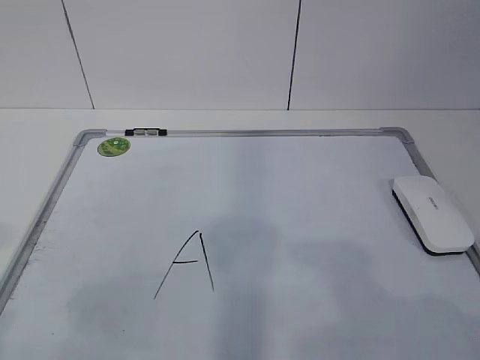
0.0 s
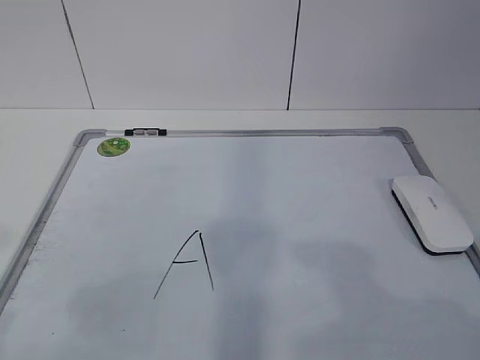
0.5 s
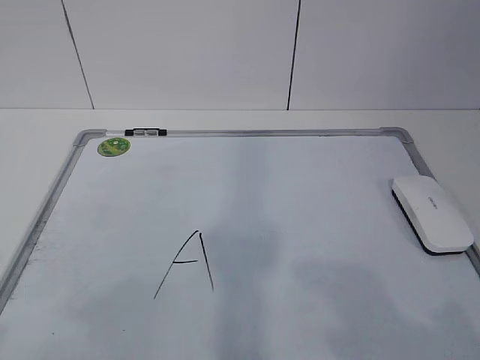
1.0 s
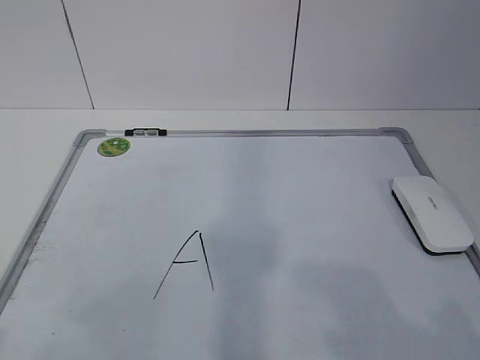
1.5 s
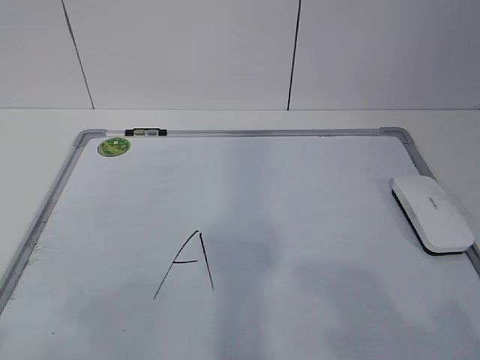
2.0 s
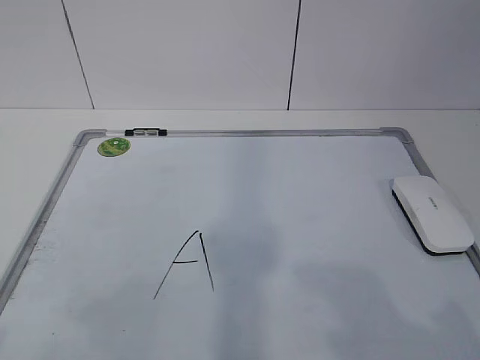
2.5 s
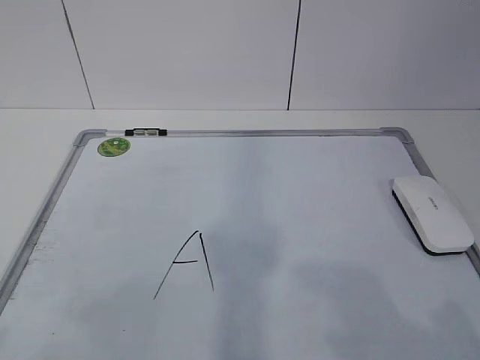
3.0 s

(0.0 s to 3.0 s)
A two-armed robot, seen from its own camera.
Task of the whole recording: pick up the eraser on the blackboard and erase the letter "a".
1.5 s - 3.0 s: The two grippers keep their place.

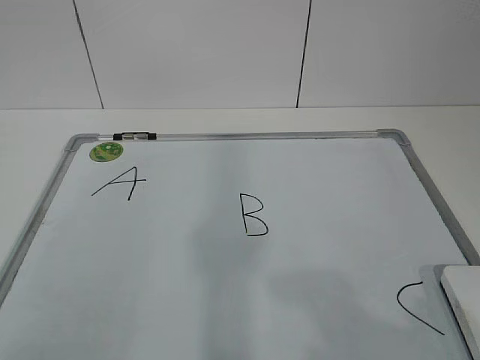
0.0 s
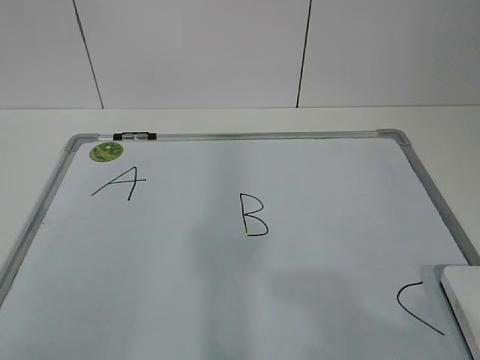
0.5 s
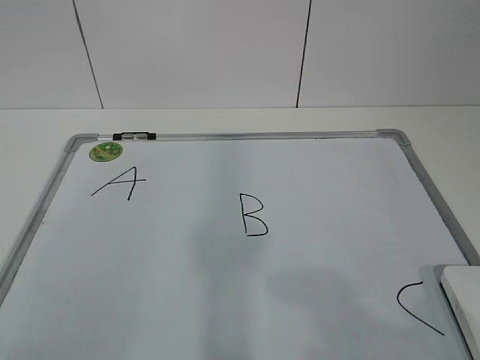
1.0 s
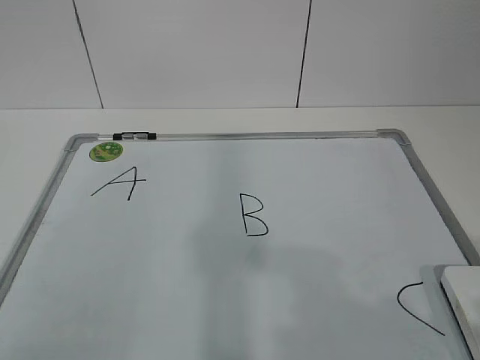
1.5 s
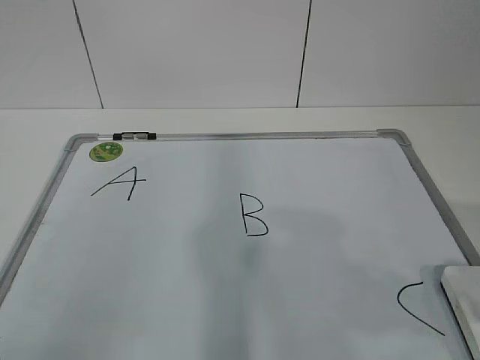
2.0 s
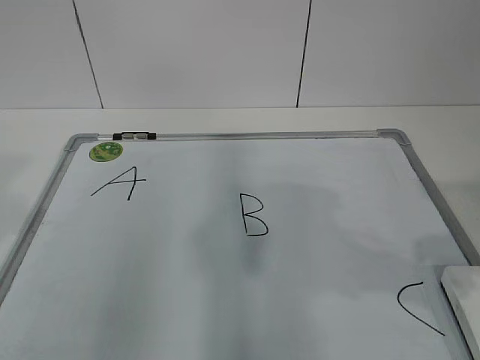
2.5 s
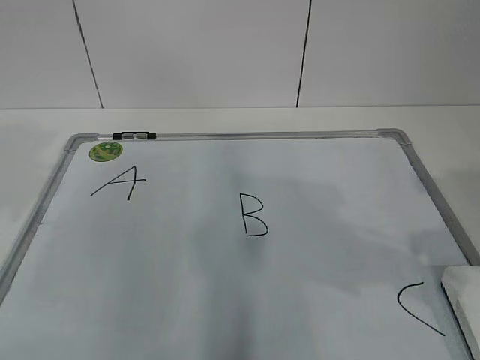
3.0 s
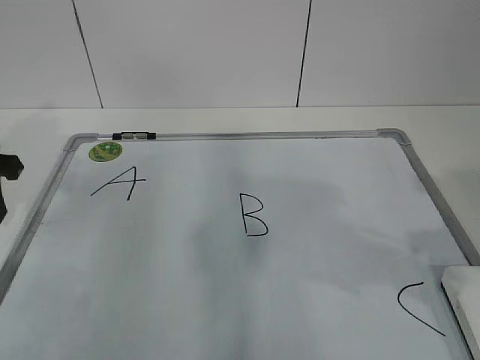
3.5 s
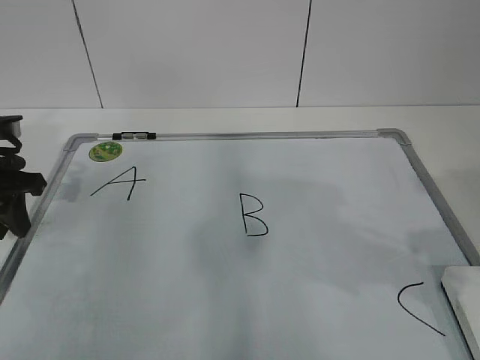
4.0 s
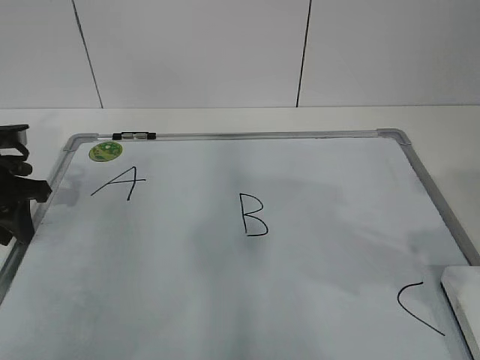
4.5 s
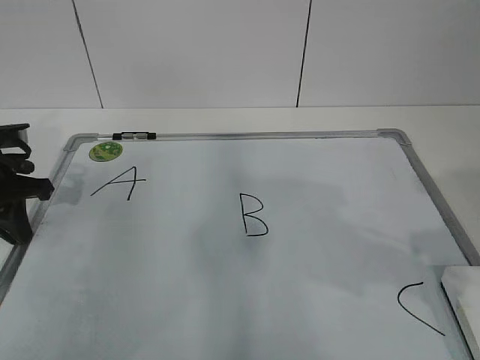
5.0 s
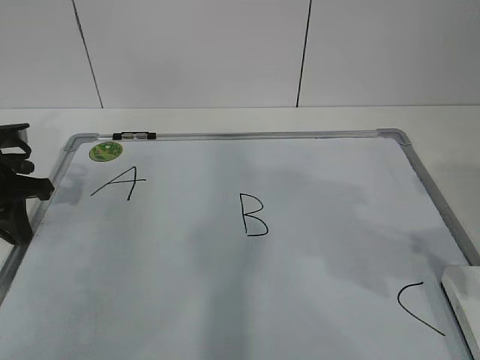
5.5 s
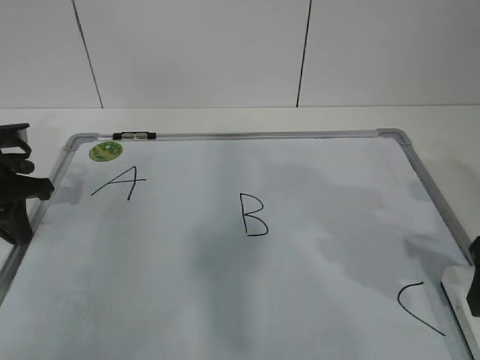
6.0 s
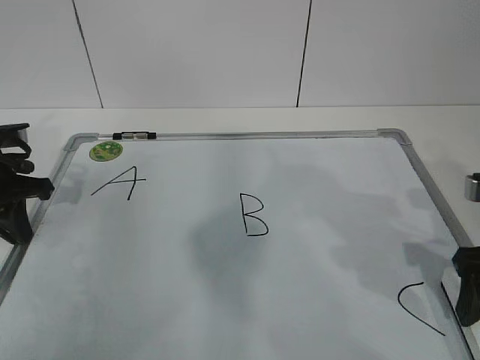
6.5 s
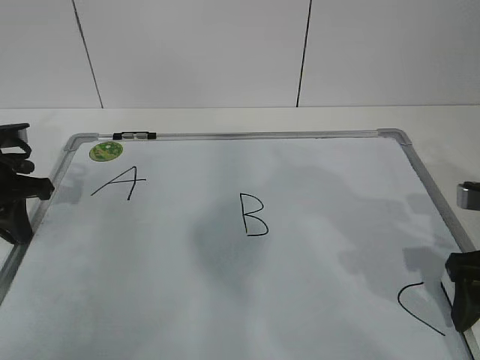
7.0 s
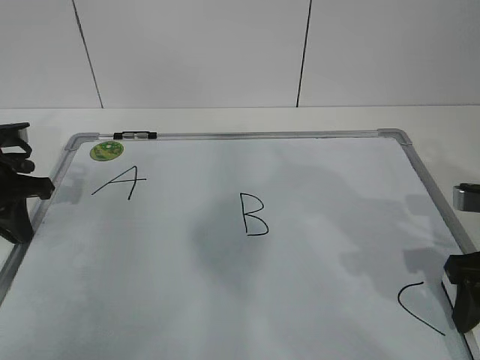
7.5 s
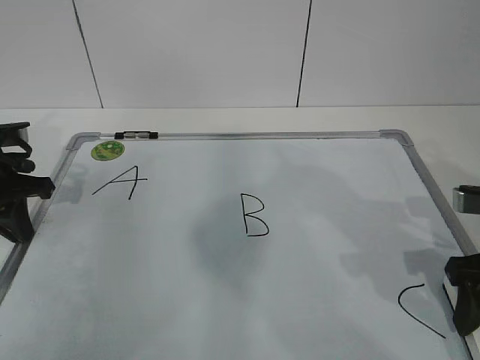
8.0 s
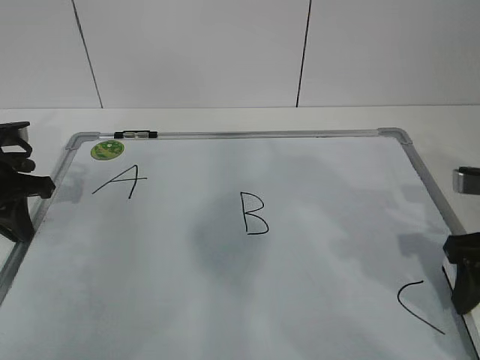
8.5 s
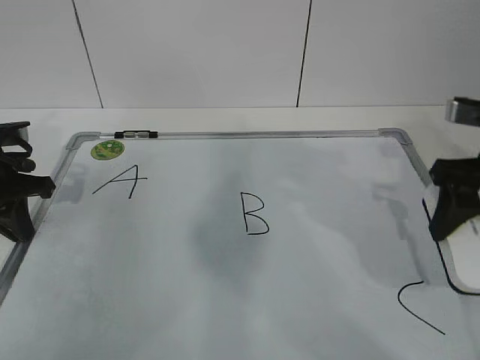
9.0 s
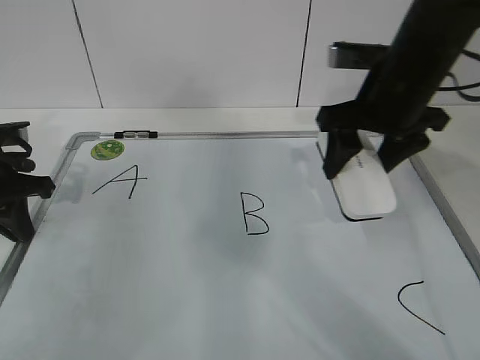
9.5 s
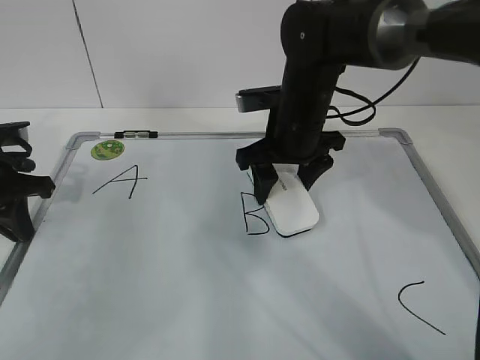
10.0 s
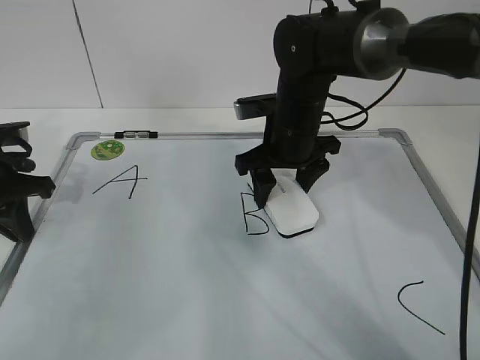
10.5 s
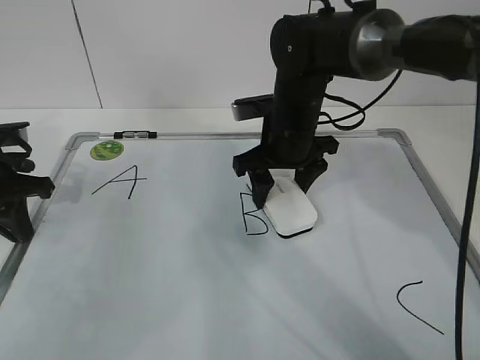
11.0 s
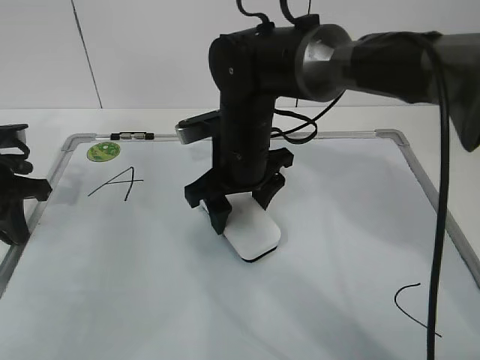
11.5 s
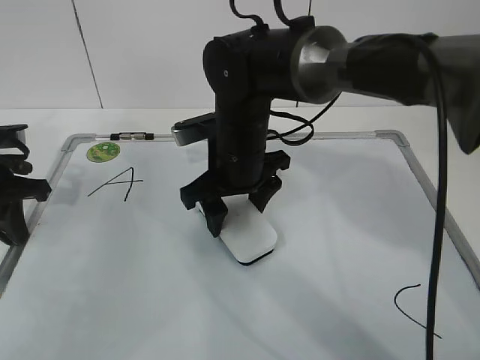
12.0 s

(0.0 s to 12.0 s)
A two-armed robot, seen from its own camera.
Task of the whole recording: pick up the eraser on the blackboard and erase the letter "B".
Step, 4.0 s - 6.5 s: Grab the eraser with your right hand.
2.0 s - 4.0 s: The left gripper moves forward and downward, roughly 30 cm.
4.0 s - 6.0 s: The right gripper heads downward and forward, covering some 10 cm, and opens its fingers. The left gripper closes.
6.0 s - 8.0 s: The right gripper closes its fingers.
8.0 s - 10.0 s: The right gripper moves to the left and forward, some 25 cm.
10.0 s - 12.0 s: The right gripper goes about 5 cm to the left.

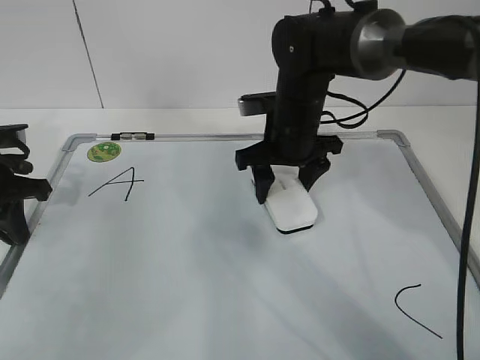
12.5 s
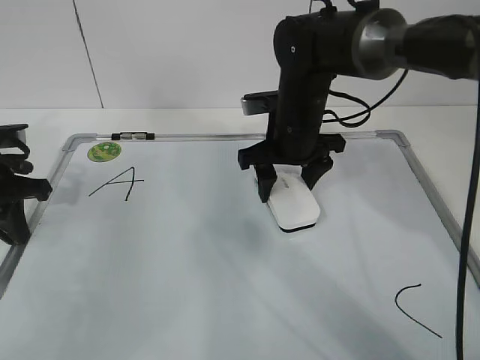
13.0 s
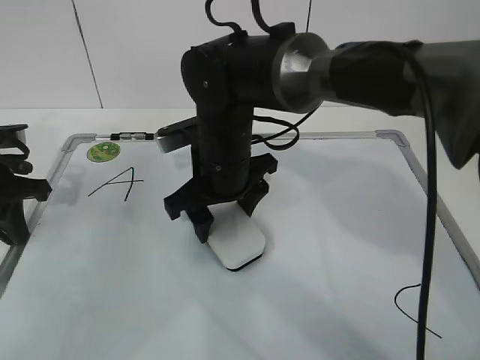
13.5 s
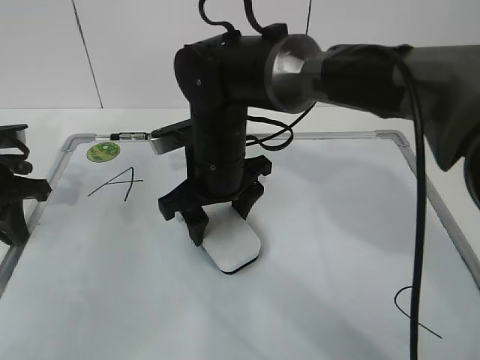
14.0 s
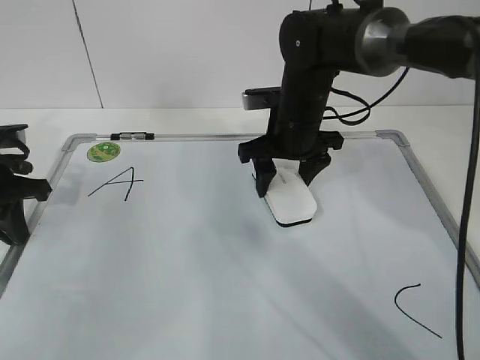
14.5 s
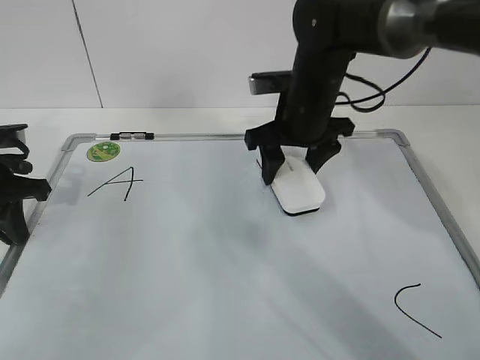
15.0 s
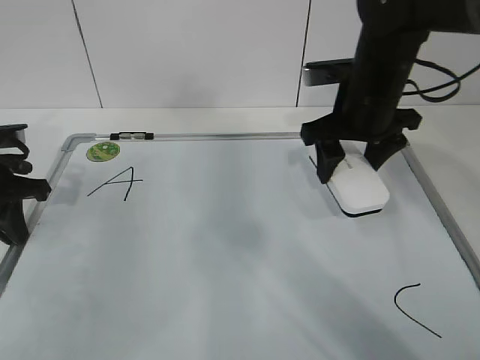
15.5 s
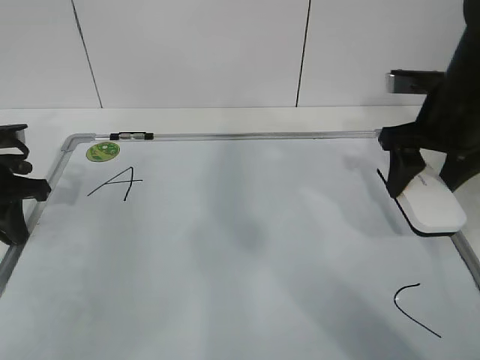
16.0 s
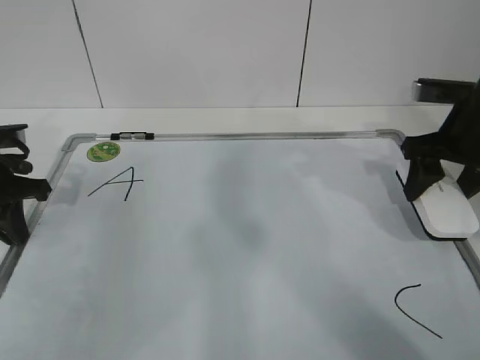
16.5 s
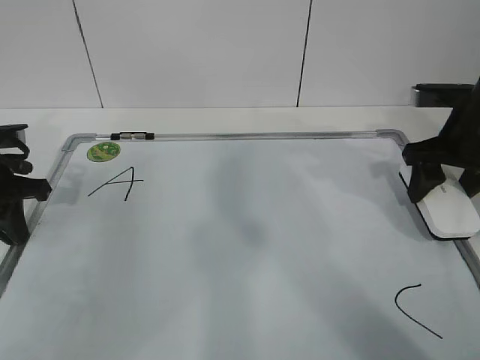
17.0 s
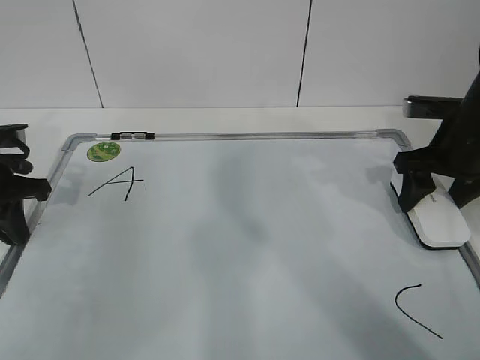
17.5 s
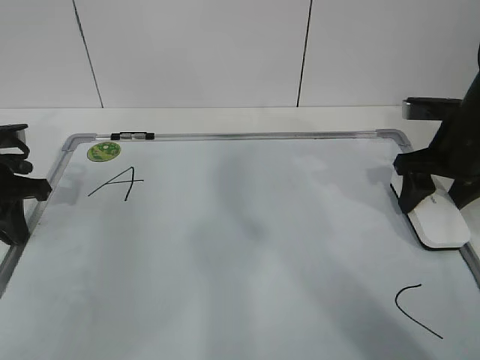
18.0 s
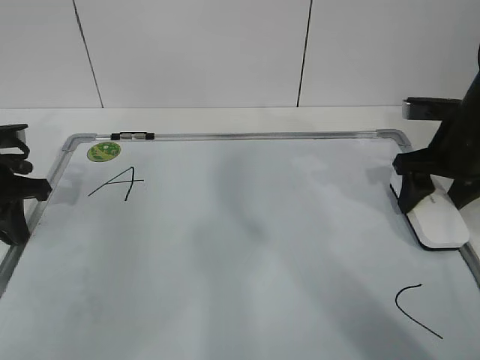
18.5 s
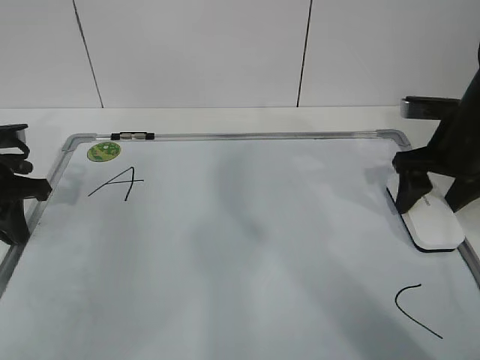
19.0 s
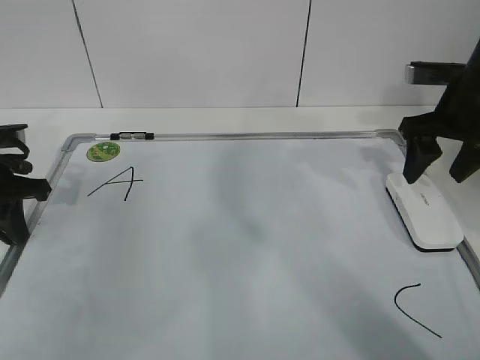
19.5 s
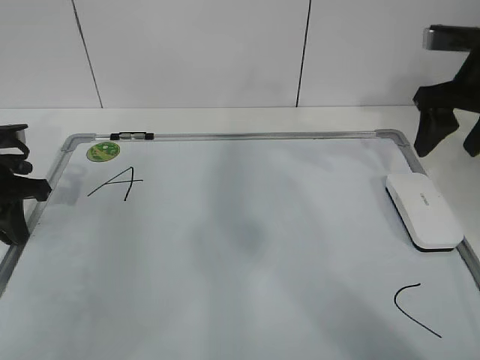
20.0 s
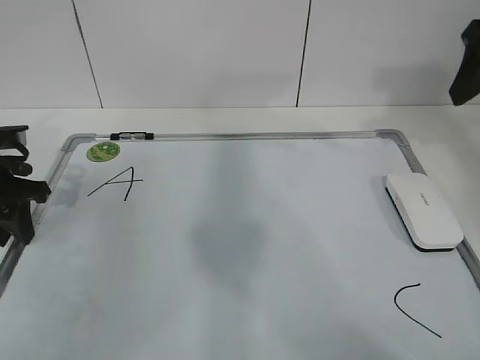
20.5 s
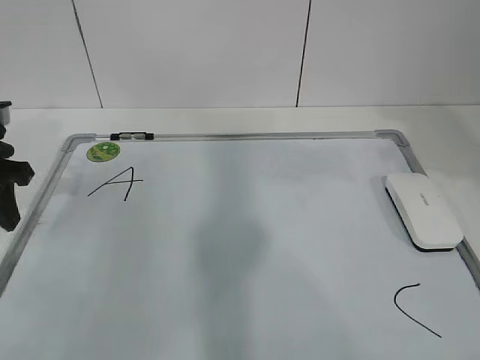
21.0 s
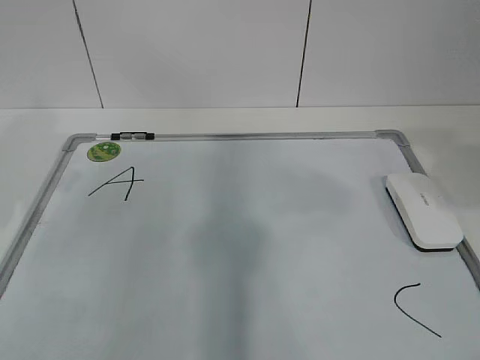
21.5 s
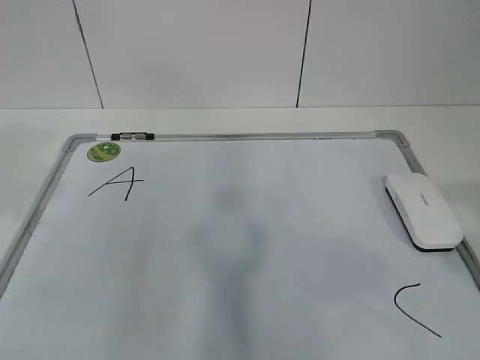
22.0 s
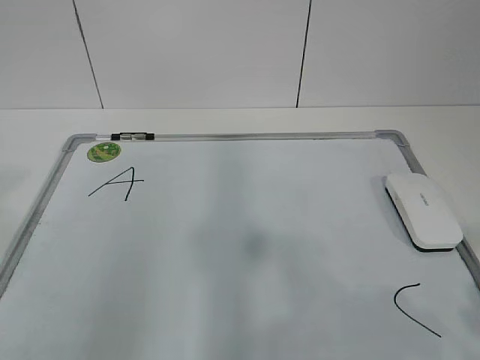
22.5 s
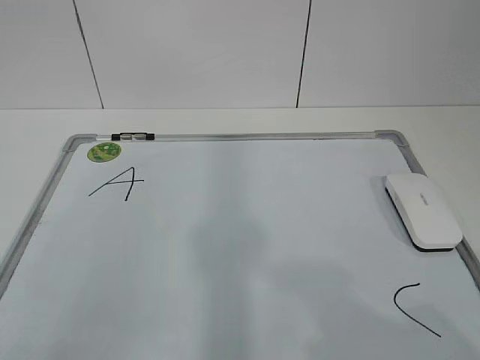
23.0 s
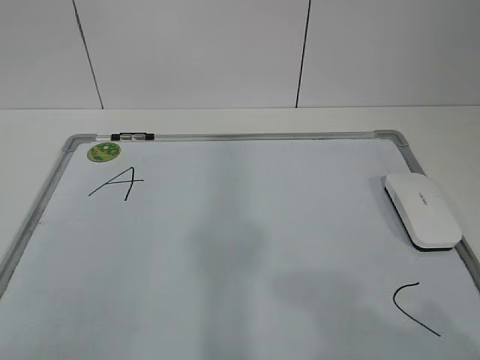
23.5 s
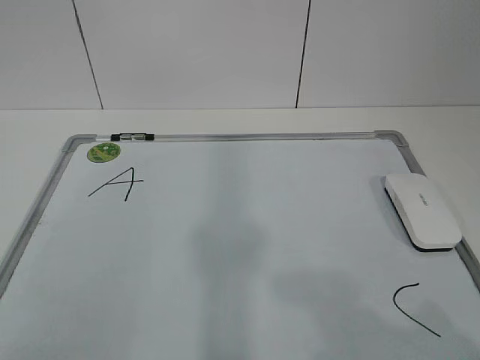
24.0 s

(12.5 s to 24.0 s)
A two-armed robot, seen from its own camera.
Task of the whole recording: pick up the eraser on the blackboard and erase the letter "B".
Step, 12.5 s - 15.5 s: Put down the eraser with your right hand.
12.5 s - 14.5 s: The right gripper goes to the left and returns, about 10 cm each way.
14.5 s - 16.5 s: The right gripper is displaced to the right by approximately 20 cm.
16.5 s - 18.5 s: The grippers move only a little.
18.5 s - 20.0 s: The right gripper shifts roughly 10 cm upward, and opens up.
20.0 s - 22.0 s: The right gripper moves backward, approximately 30 cm, while the left gripper moves upward and backward, approximately 20 cm, and opens.
22.0 s - 24.0 s: The right gripper shifts approximately 10 cm downward and backward.
